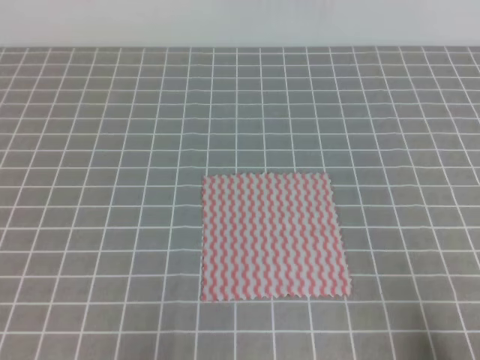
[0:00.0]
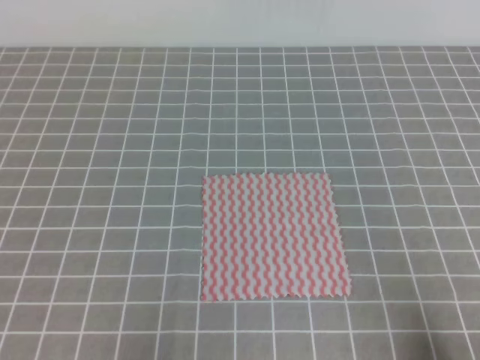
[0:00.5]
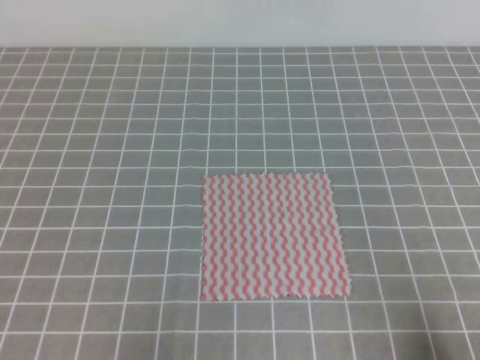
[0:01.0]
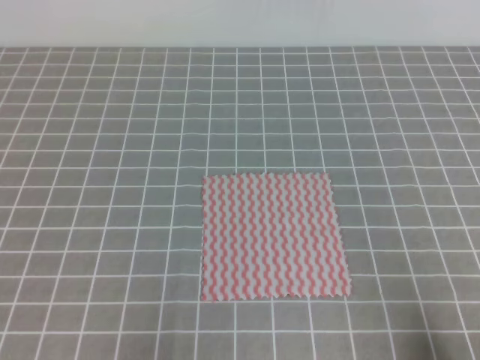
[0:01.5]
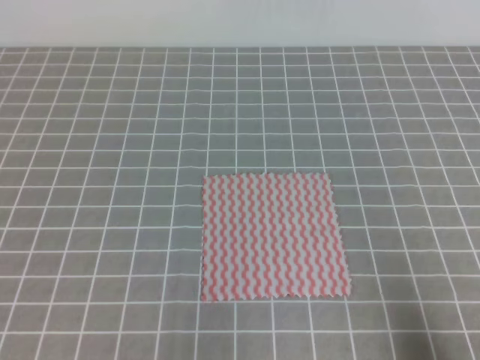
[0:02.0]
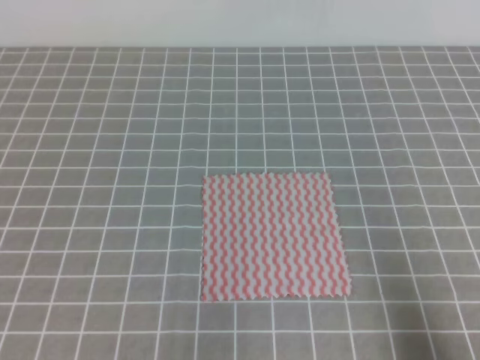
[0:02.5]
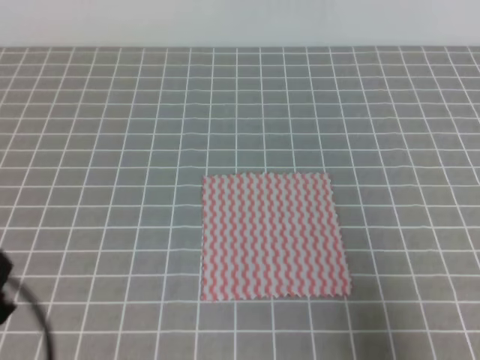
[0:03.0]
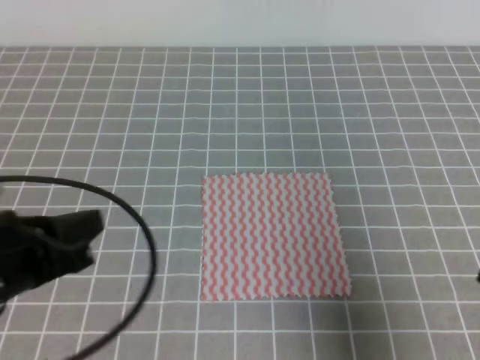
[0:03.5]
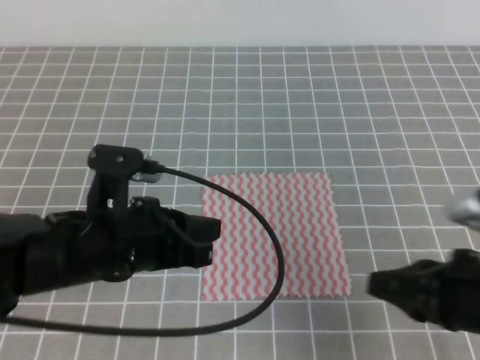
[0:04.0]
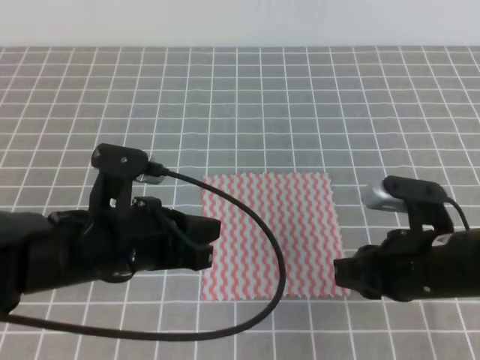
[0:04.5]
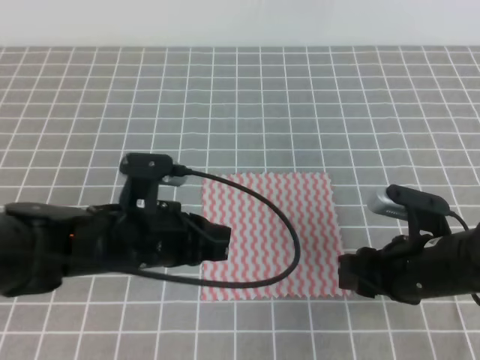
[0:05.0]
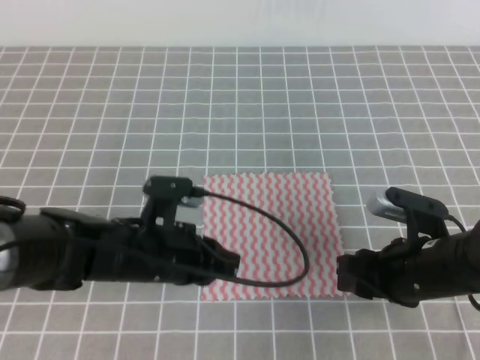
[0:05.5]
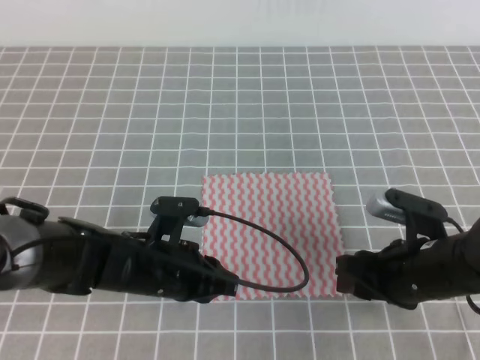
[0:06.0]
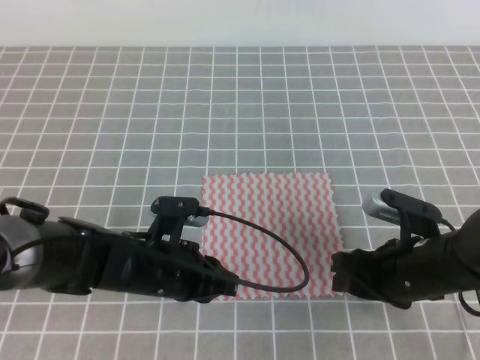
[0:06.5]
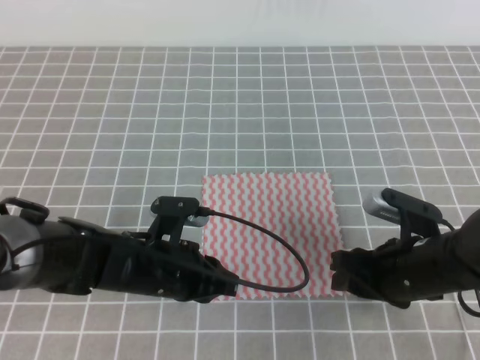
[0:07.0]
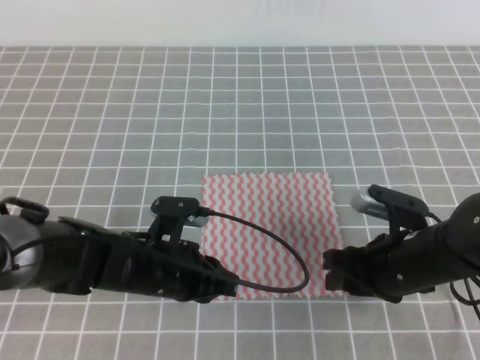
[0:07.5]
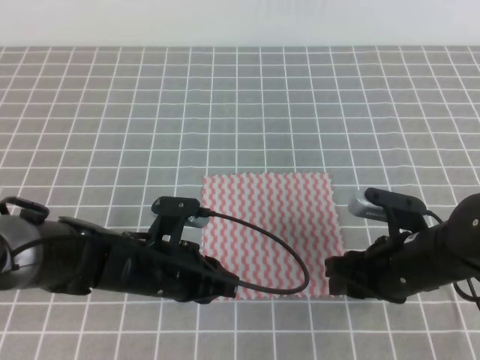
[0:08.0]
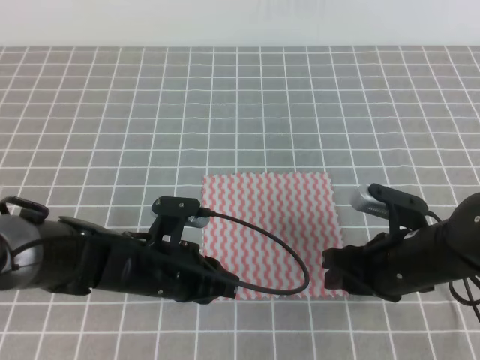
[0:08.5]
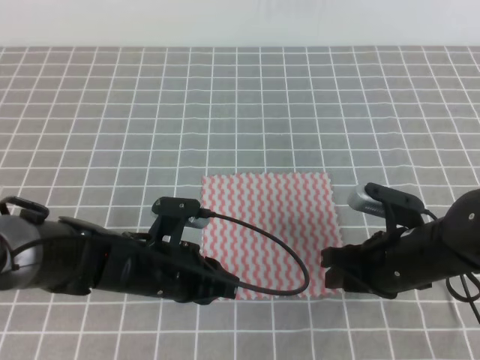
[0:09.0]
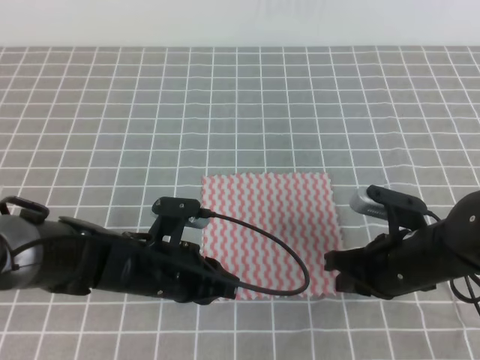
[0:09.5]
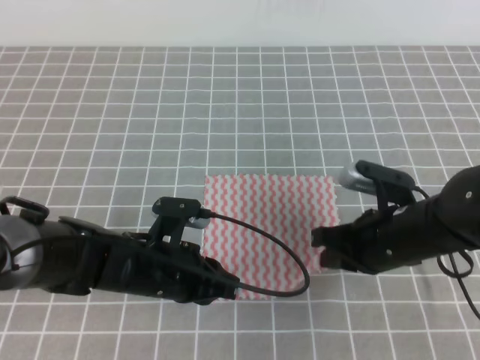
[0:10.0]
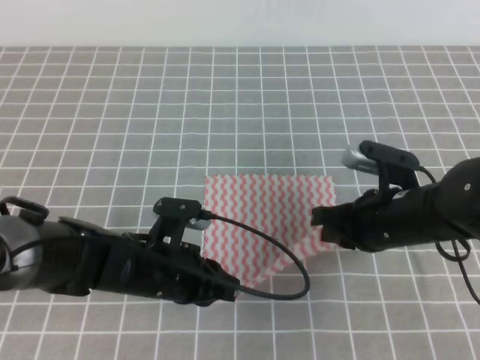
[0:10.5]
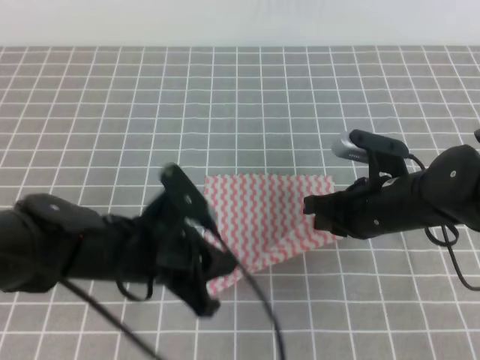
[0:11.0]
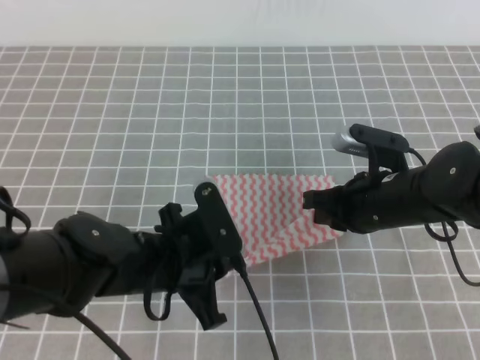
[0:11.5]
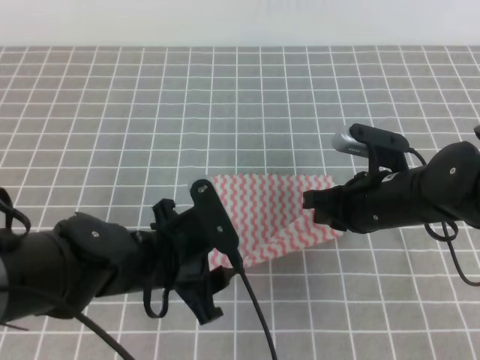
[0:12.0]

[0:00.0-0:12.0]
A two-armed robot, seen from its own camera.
0:02.0 to 0:04.0: The right gripper is displaced forward and to the left by some 15 cm, while the left gripper travels forward and to the right by approximately 20 cm.
0:04.0 to 0:06.0: The right gripper moves downward and forward, roughly 10 cm, and opens; the left gripper moves downward, roughly 10 cm.
0:06.0 to 0:08.0: The grippers move only a little.
0:08.0 to 0:10.0: The right gripper closes up.
0:10.0 to 0:12.0: The left gripper is displaced upward by roughly 5 cm, and opens up.

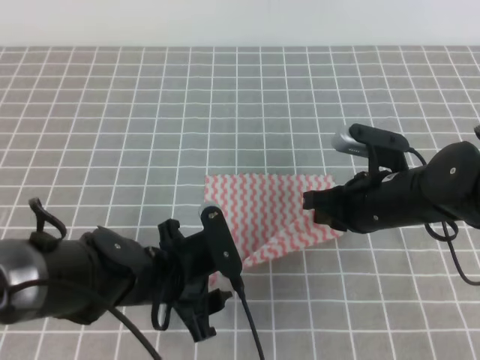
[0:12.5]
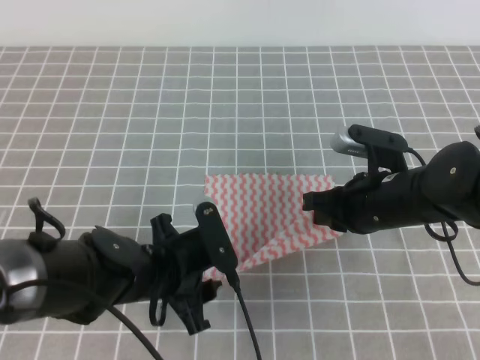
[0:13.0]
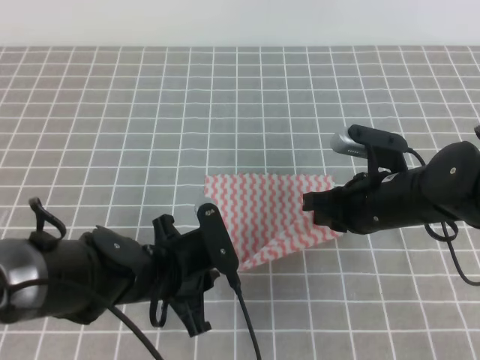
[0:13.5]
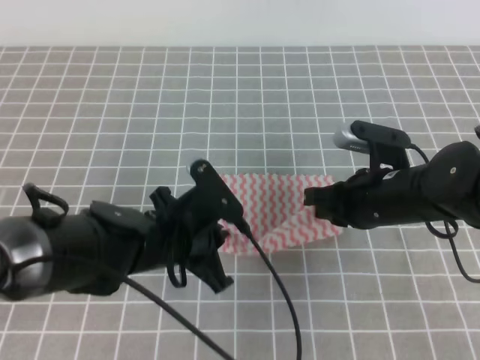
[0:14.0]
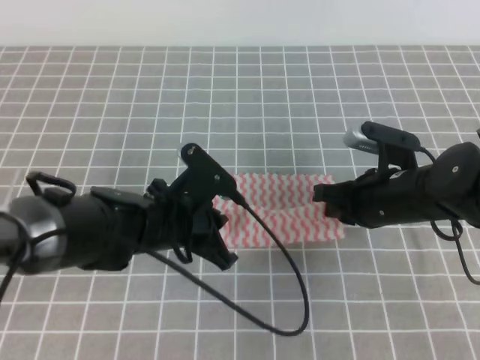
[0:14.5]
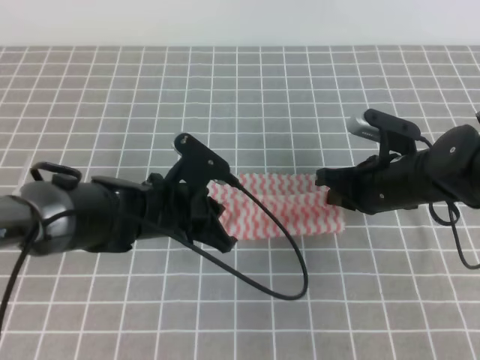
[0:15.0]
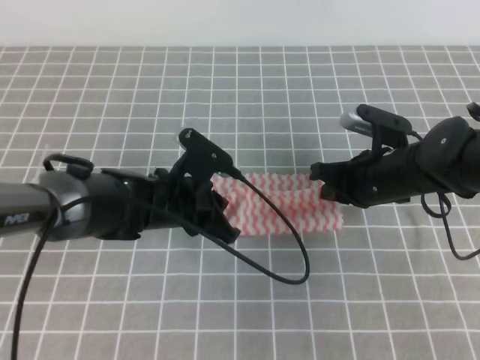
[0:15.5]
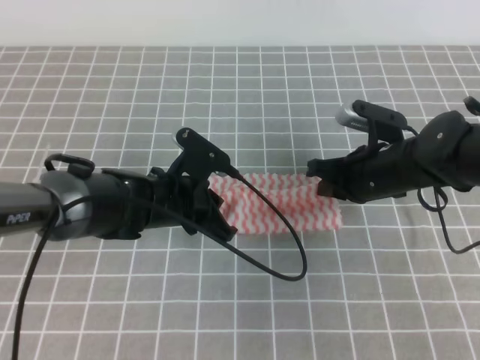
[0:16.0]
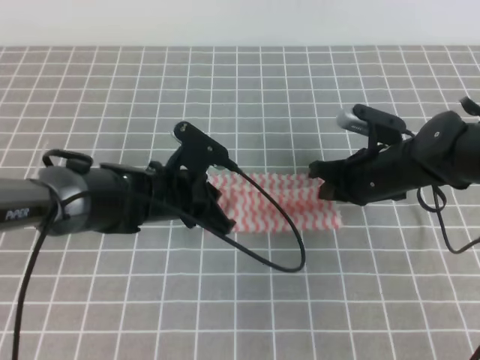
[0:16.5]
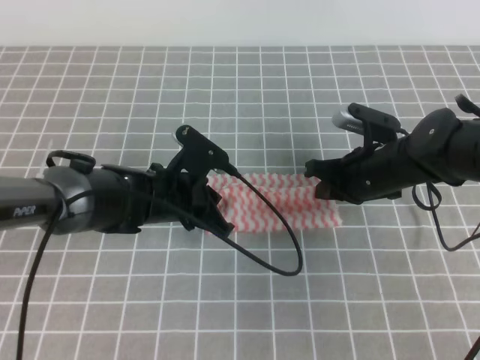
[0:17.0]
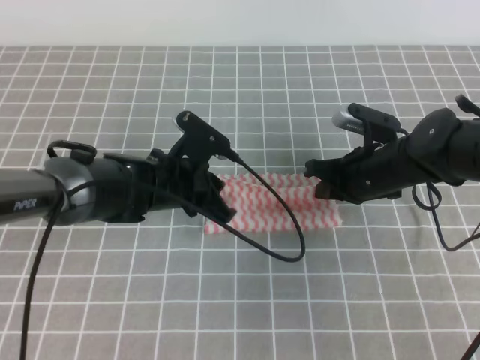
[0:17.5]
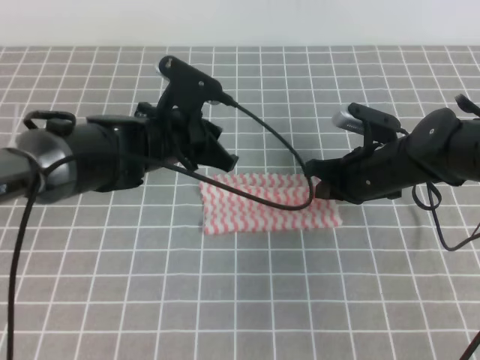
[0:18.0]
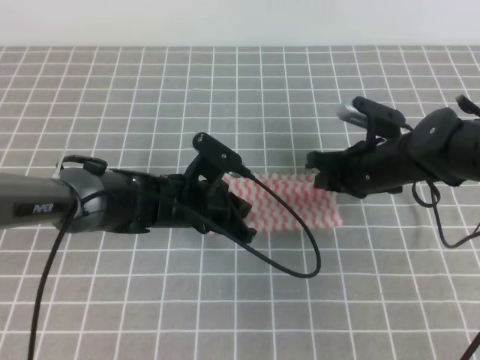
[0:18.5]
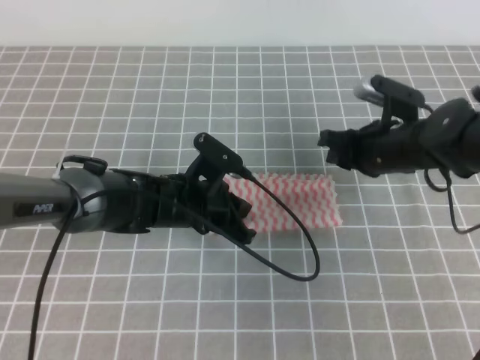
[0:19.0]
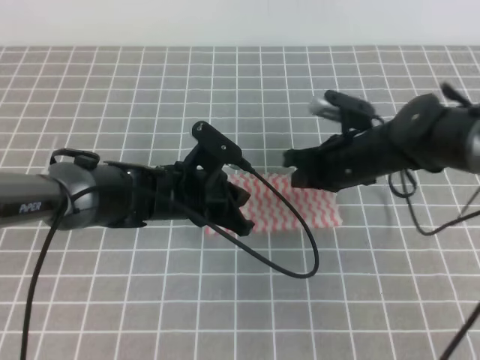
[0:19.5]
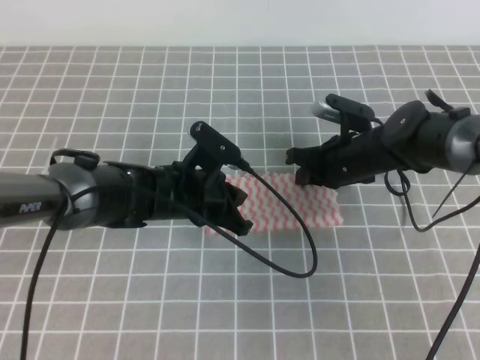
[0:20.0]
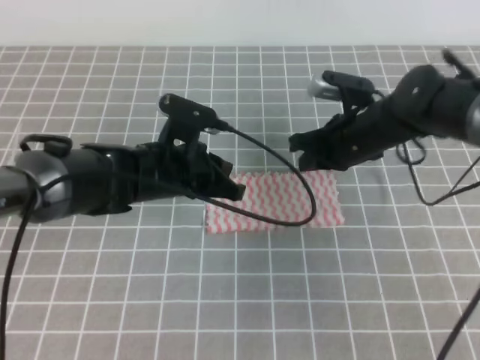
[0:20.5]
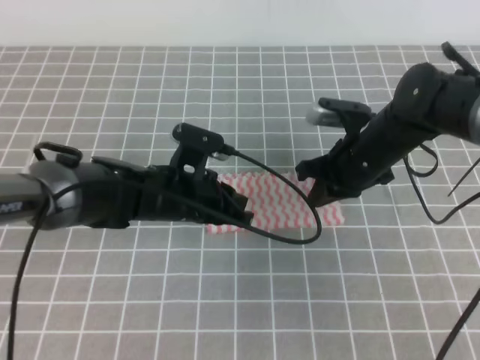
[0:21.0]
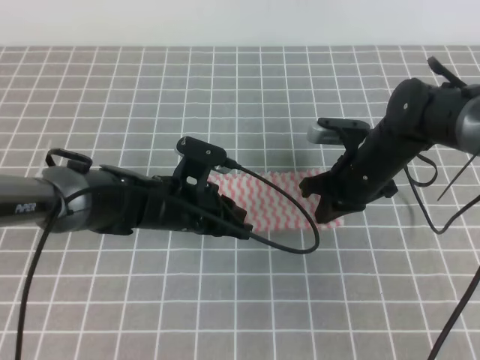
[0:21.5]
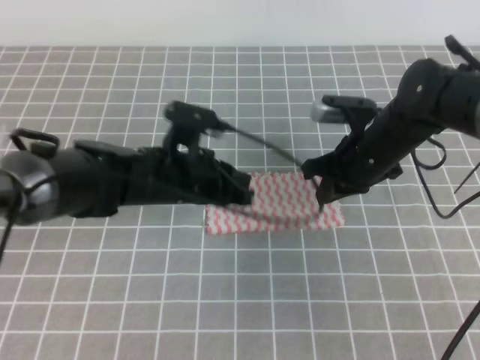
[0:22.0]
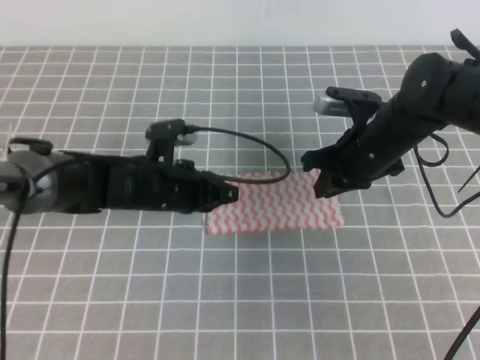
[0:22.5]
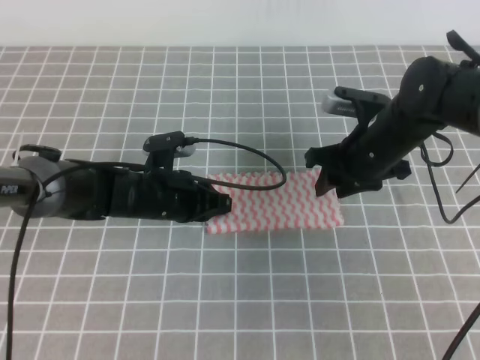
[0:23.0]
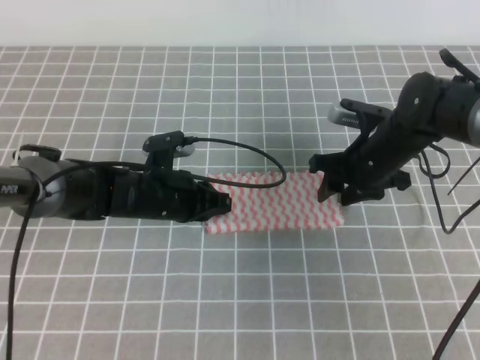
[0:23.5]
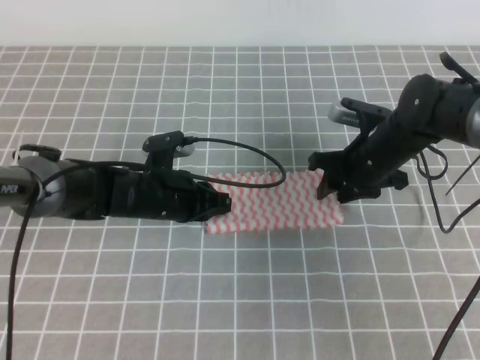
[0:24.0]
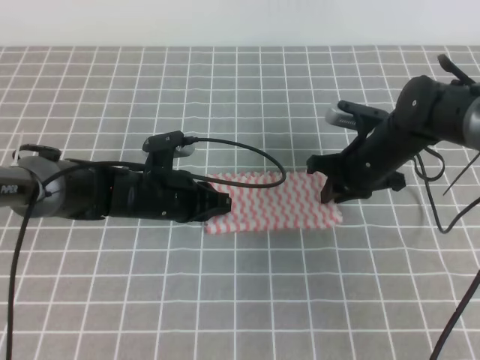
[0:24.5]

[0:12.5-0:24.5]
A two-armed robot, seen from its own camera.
0:12.5 to 0:14.5: The left gripper heads forward, covering roughly 5 cm, and closes its fingers.
0:14.5 to 0:16.5: Both grippers travel together forward, approximately 5 cm.
0:16.5 to 0:18.5: The grippers move only a little.
0:22.5 to 0:24.5: The right gripper opens, then closes once more.

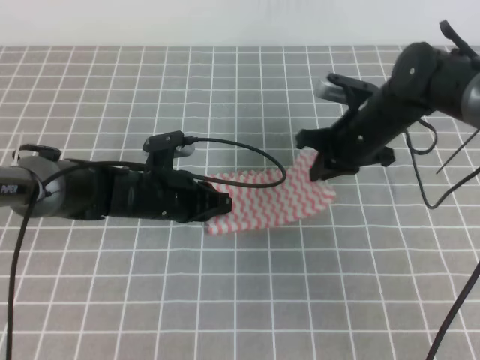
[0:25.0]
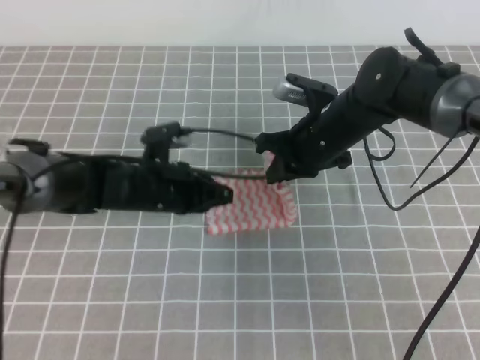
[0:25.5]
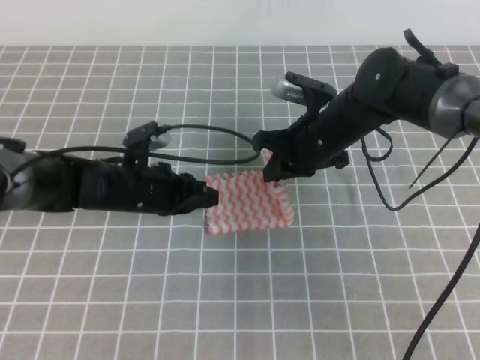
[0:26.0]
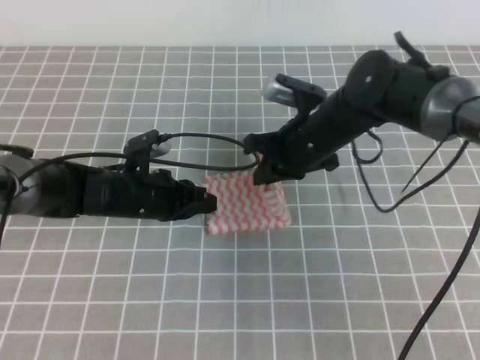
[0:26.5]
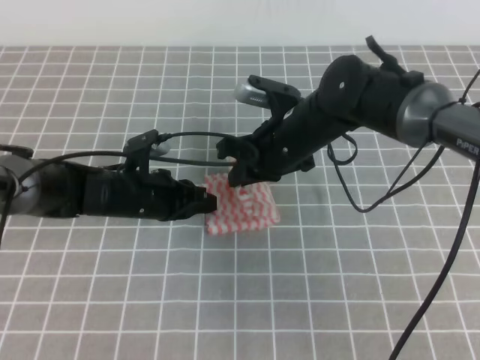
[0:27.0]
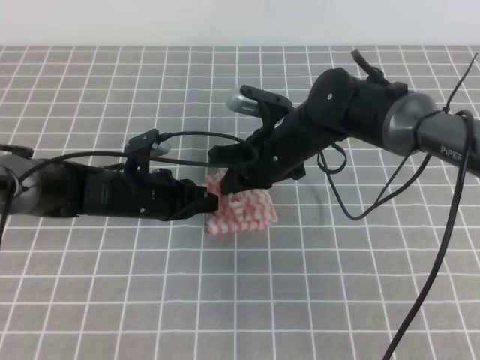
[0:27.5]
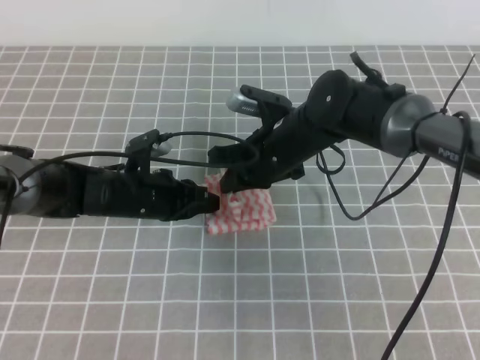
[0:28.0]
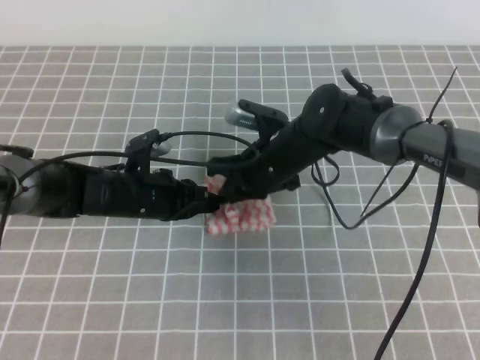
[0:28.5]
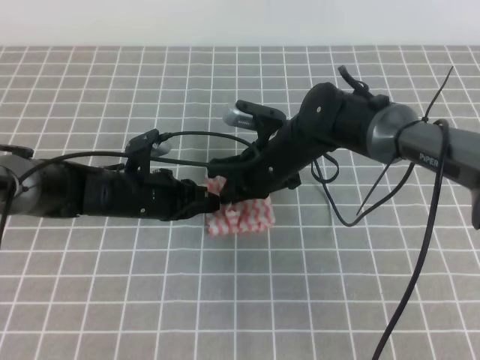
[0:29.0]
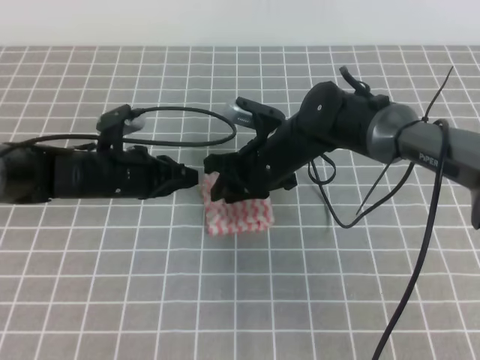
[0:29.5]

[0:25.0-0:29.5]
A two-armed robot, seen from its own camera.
0:25.0 to 0:27.0: The right gripper heads to the left, covering some 10 cm.
0:27.0 to 0:29.5: The right gripper opens its fingers.
